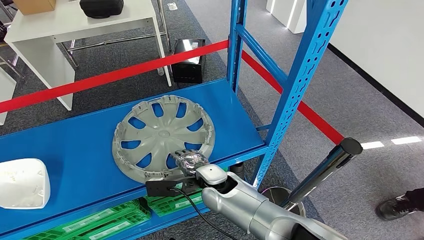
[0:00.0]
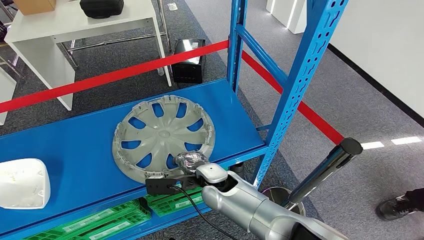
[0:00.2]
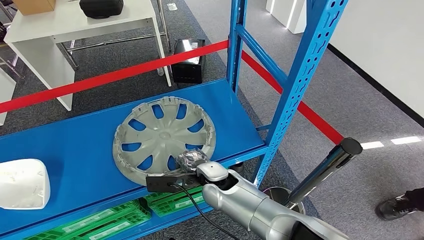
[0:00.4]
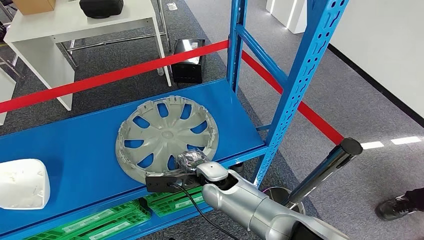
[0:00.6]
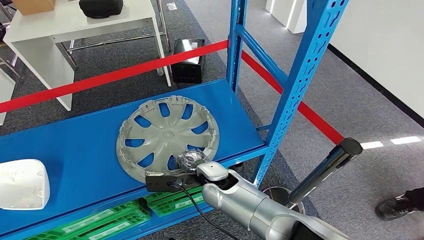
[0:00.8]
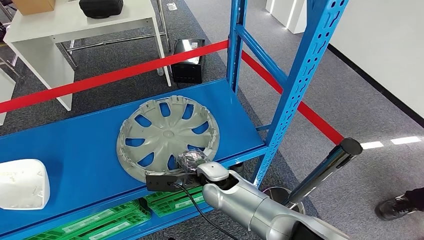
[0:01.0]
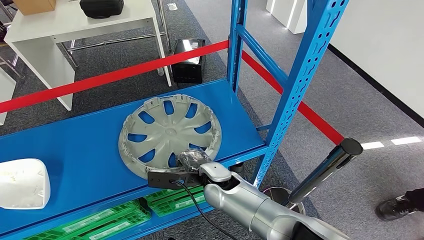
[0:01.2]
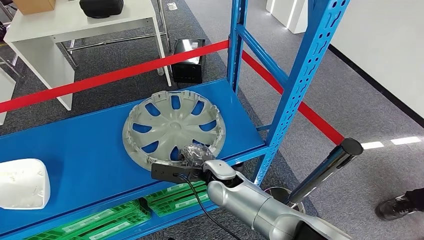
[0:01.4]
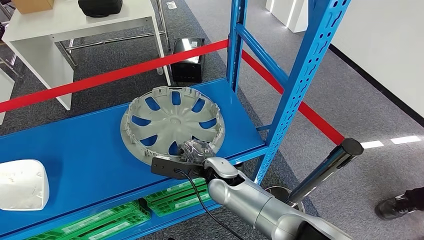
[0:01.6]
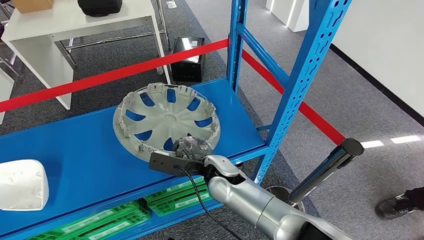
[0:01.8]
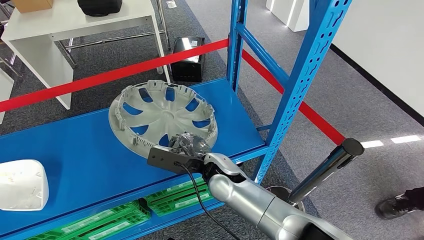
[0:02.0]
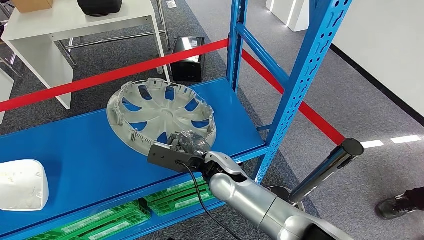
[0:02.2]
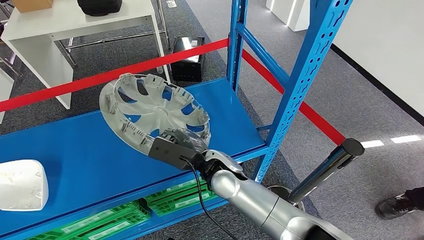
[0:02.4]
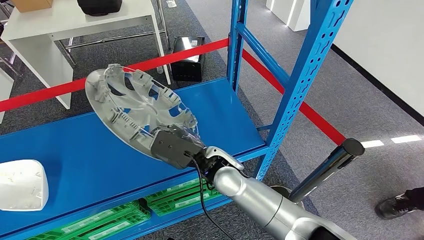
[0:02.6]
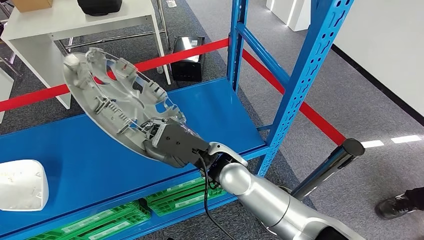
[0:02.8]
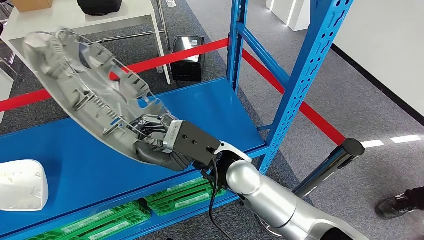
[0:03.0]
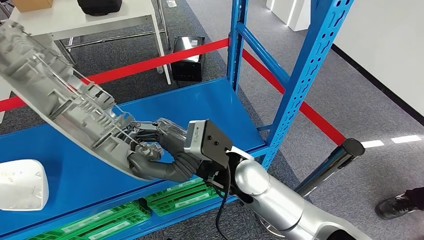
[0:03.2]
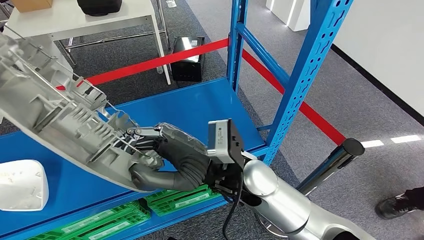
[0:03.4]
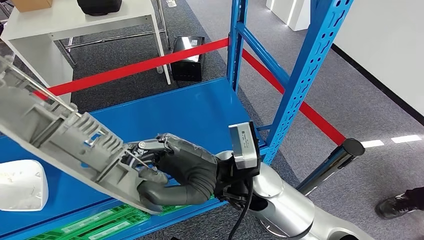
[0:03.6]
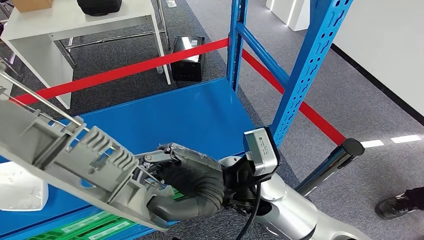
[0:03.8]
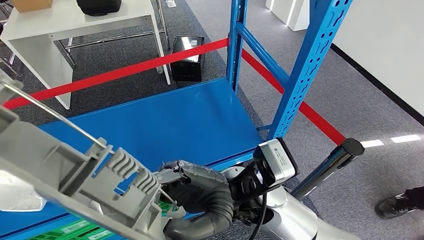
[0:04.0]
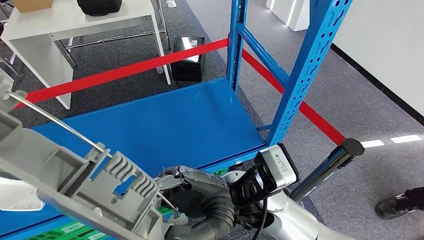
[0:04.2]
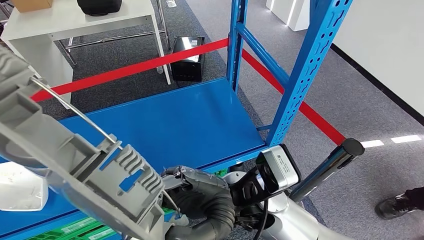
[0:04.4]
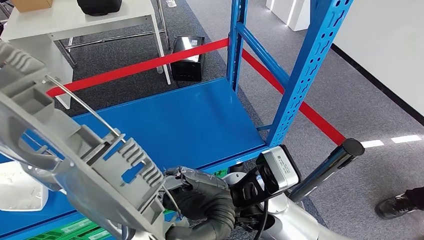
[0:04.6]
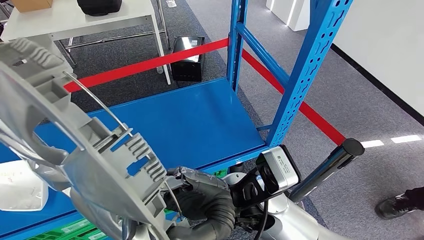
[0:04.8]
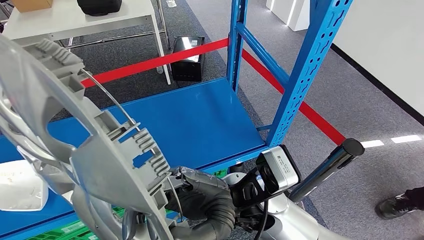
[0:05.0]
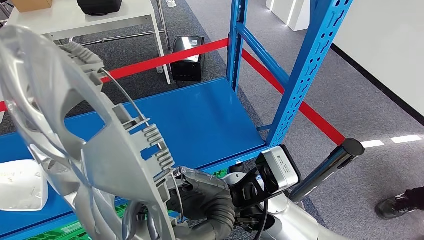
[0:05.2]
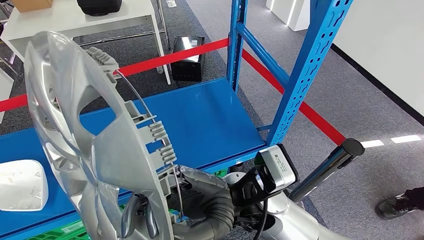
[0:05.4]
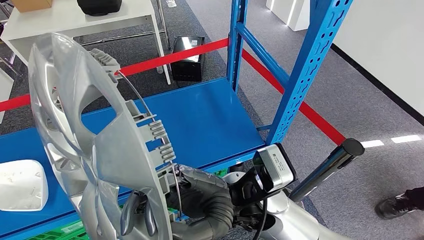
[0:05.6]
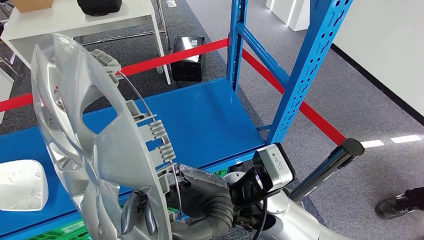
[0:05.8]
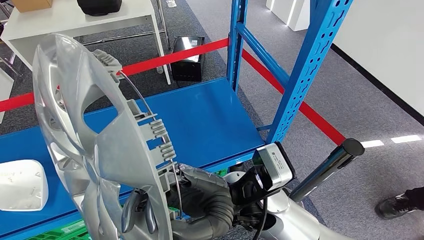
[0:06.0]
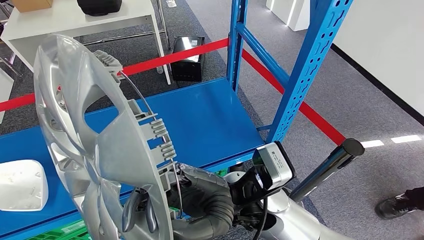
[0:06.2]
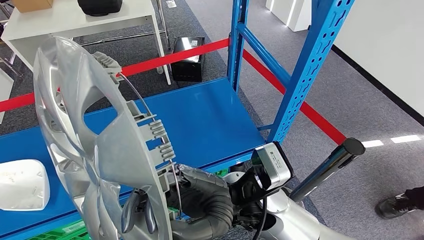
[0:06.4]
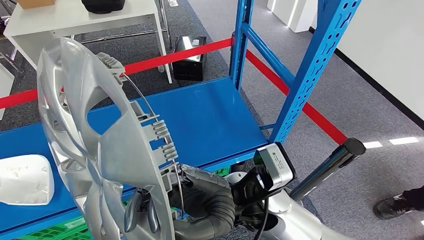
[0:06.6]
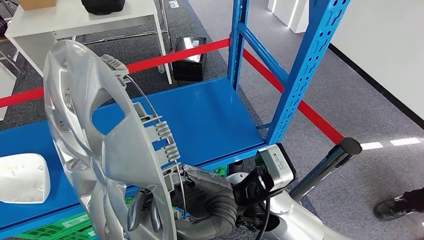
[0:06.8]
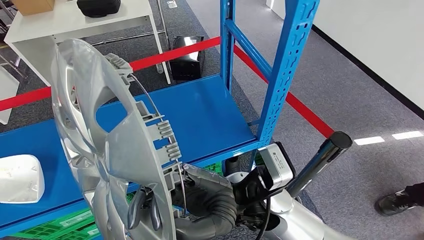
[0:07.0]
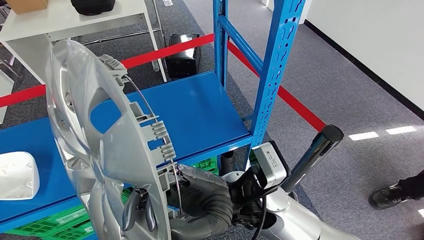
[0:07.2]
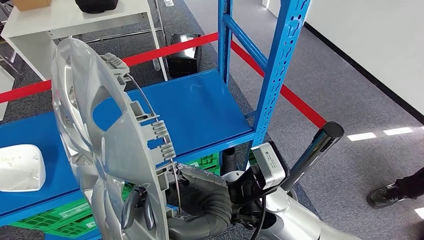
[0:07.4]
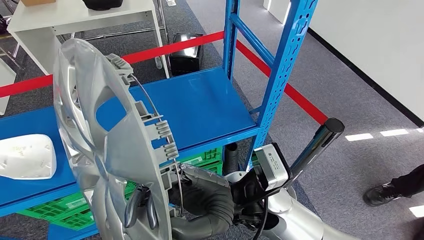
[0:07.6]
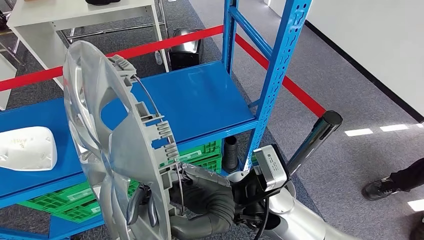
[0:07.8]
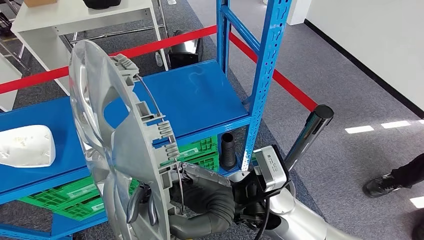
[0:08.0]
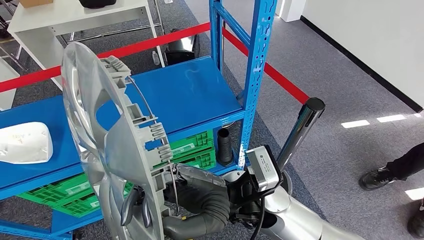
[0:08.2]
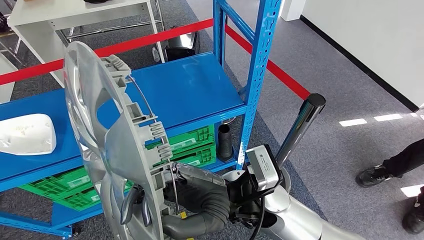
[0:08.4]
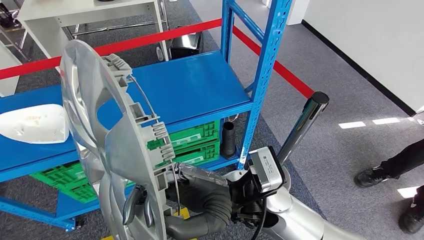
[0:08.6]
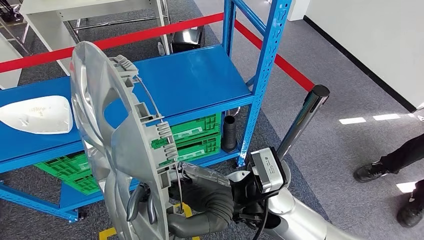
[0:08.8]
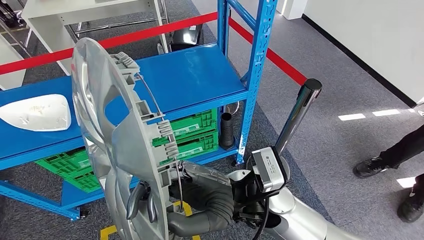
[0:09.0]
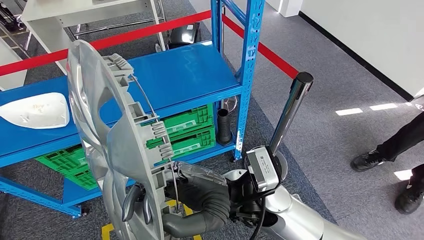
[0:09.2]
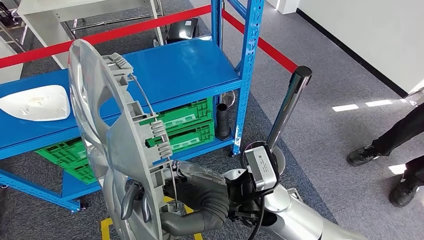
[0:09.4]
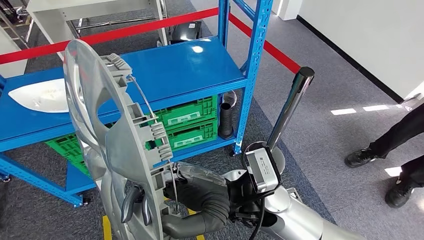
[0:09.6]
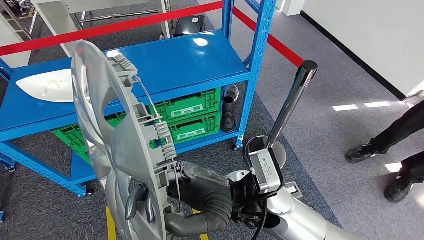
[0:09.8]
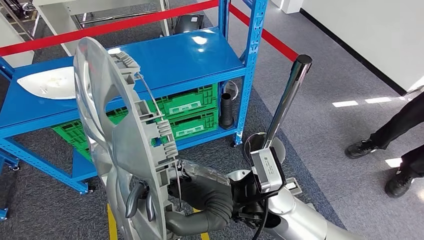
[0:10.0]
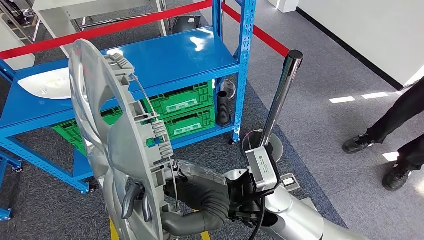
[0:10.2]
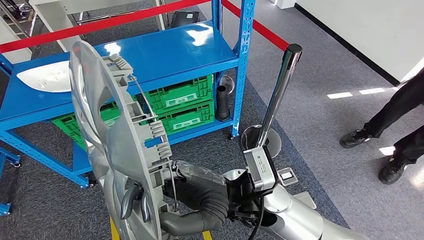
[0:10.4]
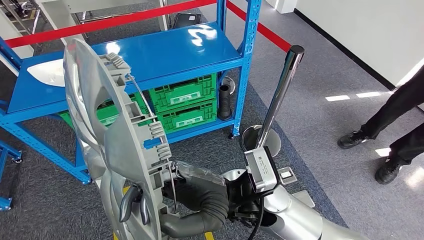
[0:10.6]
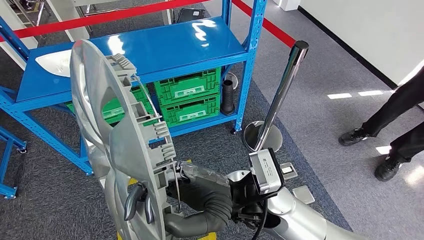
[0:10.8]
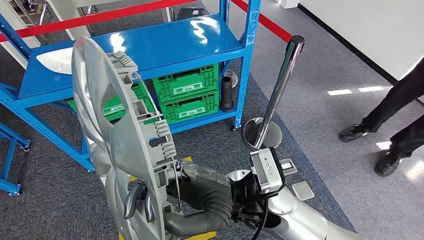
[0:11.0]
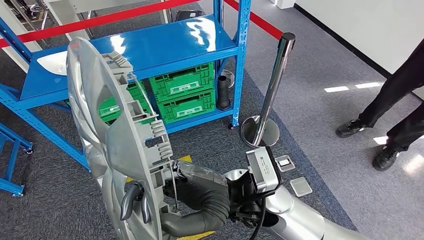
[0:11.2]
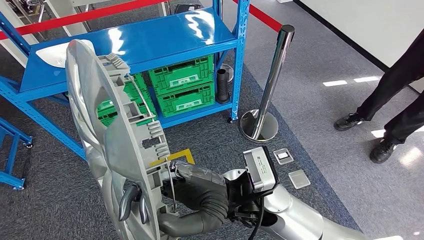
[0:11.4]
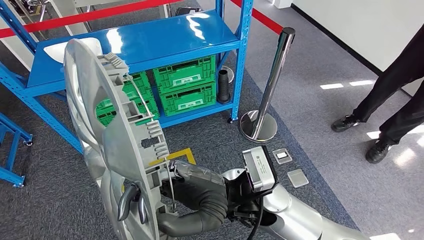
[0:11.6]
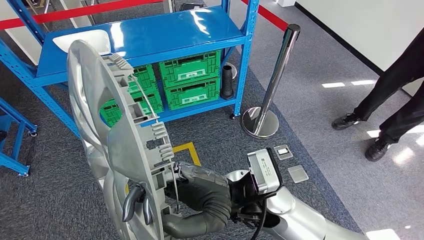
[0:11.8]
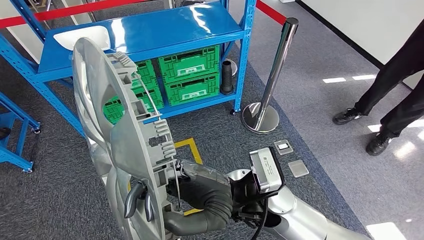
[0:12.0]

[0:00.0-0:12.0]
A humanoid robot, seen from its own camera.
Step, 0:00.0 to 0:04.6: Pick up the large material from the shelf.

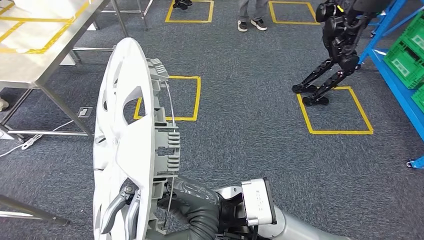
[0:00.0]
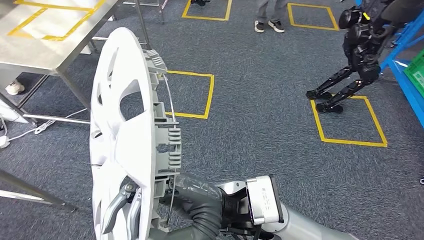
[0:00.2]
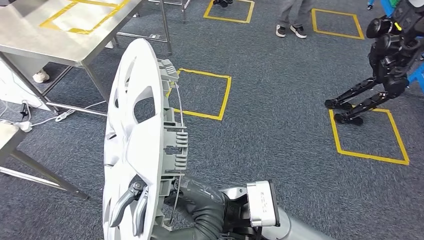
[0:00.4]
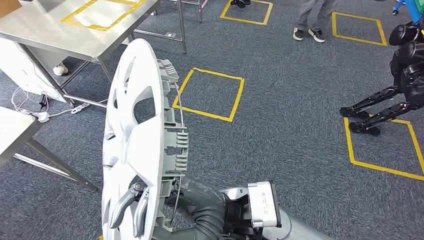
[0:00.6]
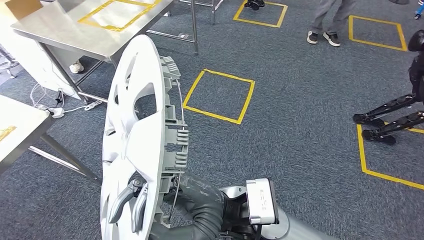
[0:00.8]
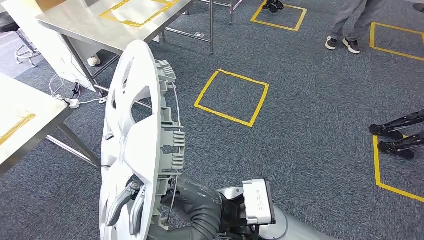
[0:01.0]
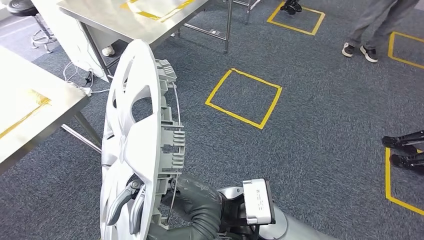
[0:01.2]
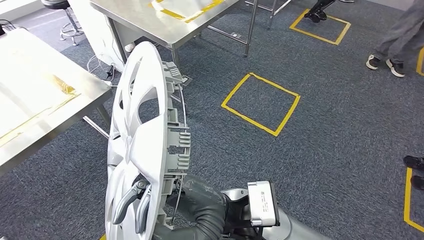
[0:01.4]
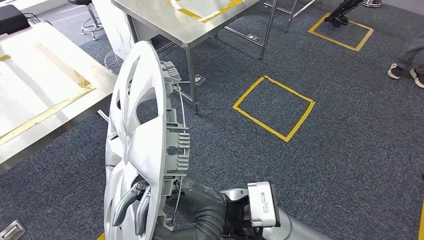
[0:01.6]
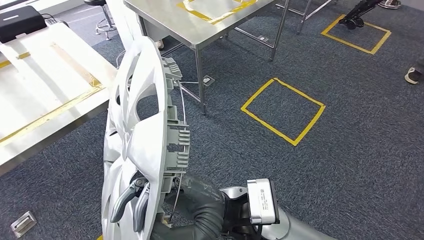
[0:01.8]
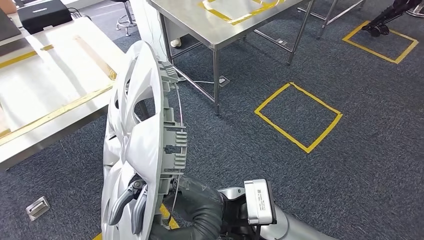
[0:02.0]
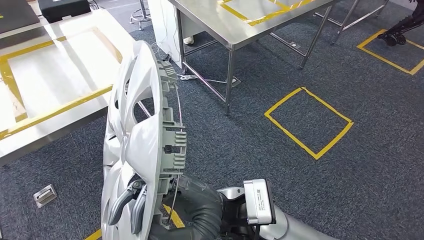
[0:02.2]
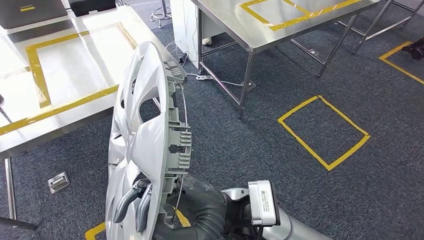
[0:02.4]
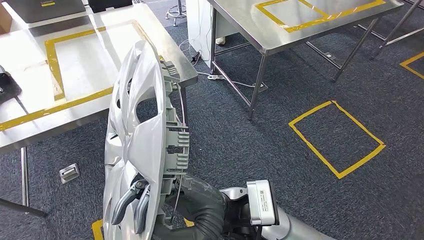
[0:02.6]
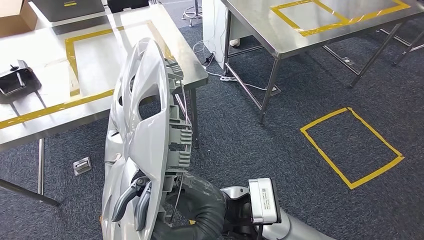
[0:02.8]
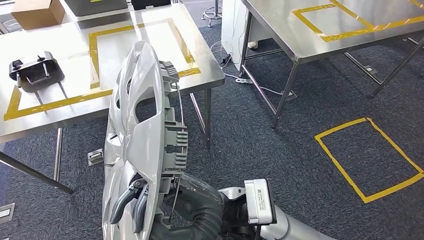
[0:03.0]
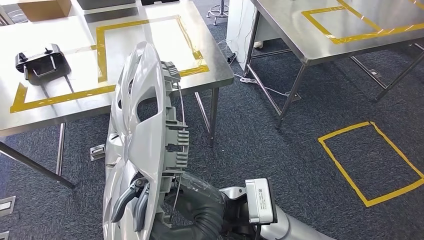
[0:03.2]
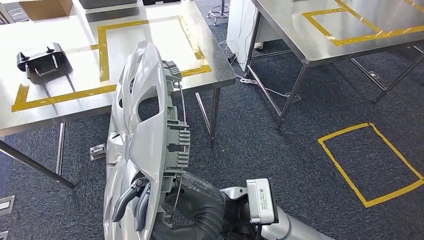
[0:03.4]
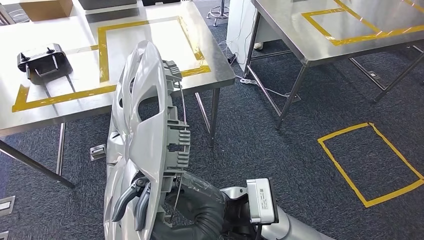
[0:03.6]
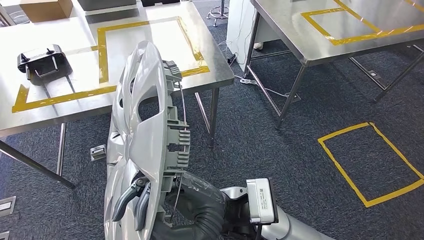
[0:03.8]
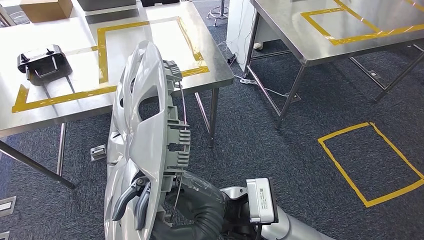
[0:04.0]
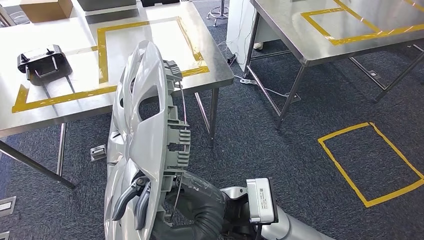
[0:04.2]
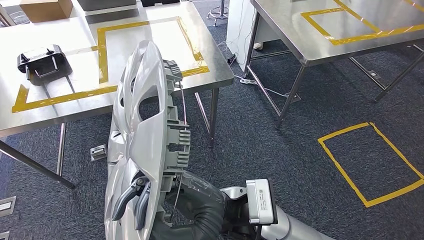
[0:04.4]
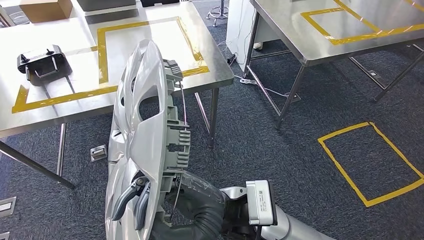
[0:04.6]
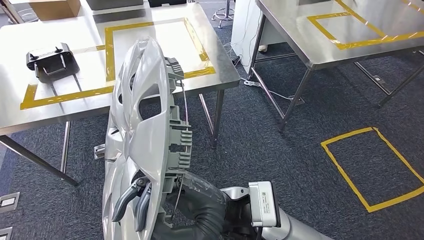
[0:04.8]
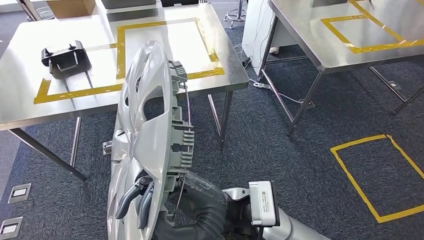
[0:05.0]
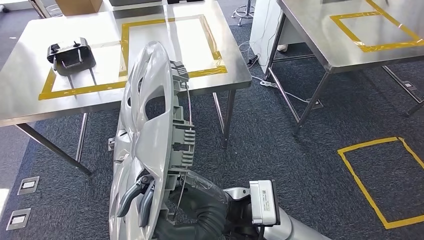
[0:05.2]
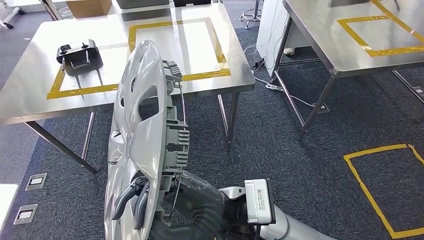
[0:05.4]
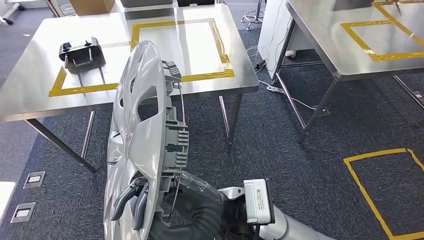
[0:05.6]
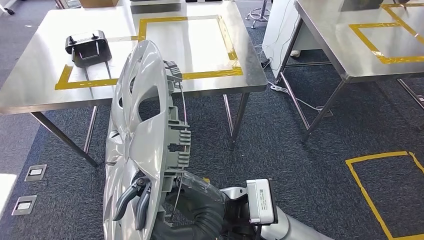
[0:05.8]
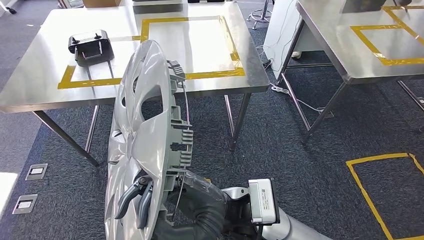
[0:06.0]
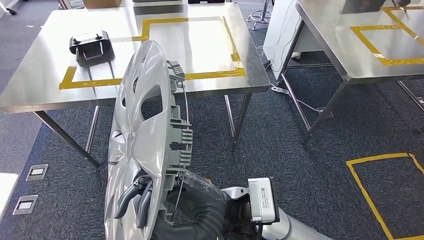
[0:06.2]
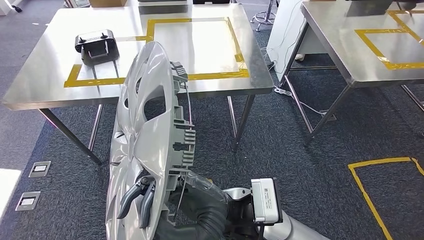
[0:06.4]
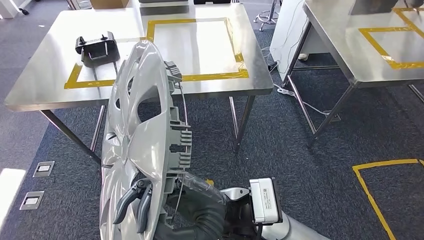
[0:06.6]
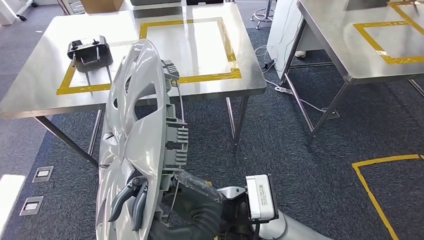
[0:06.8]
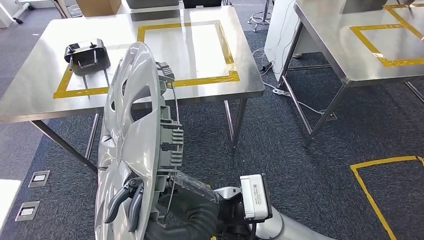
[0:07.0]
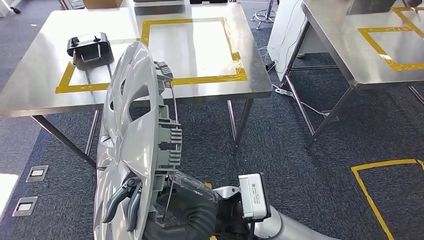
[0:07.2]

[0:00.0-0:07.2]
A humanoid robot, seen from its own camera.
Step, 0:00.0 to 0:04.2: Move the large material to the workbench.
